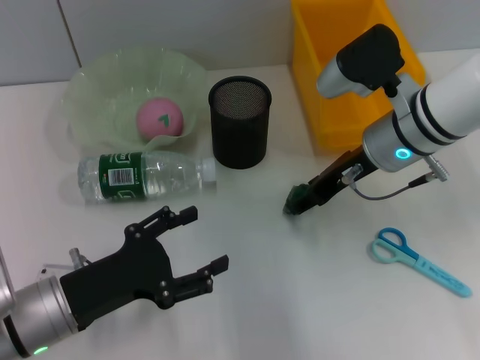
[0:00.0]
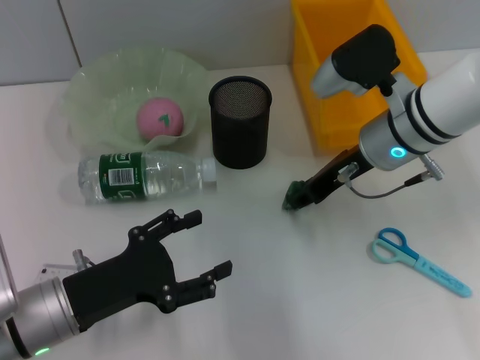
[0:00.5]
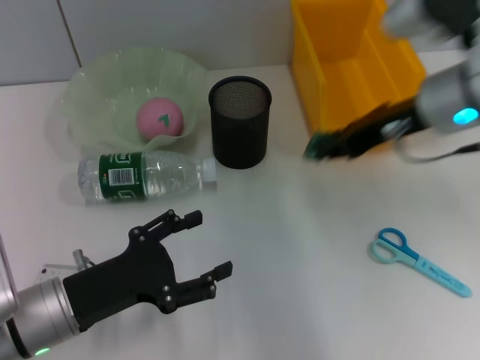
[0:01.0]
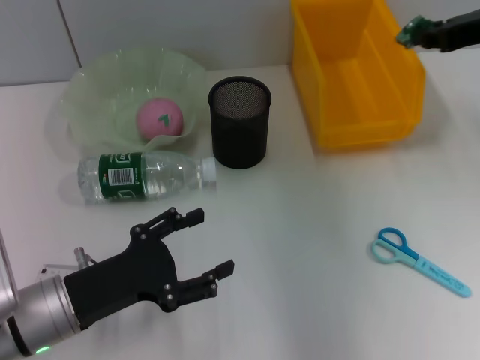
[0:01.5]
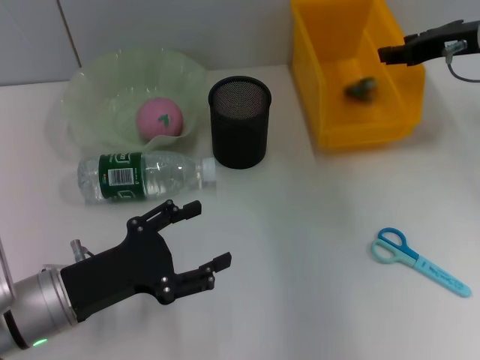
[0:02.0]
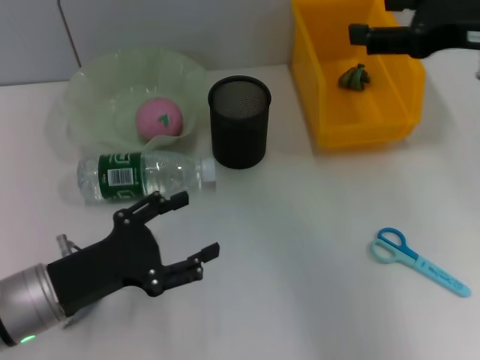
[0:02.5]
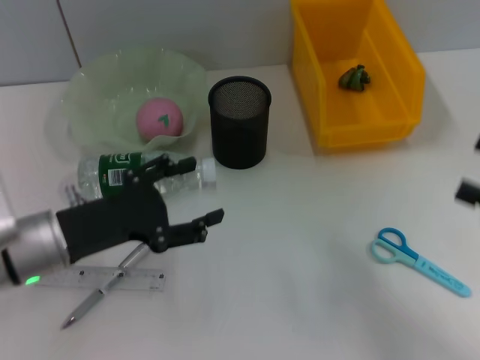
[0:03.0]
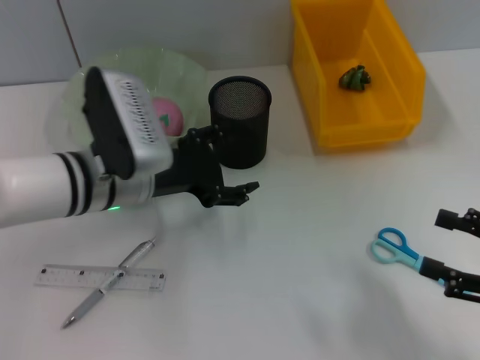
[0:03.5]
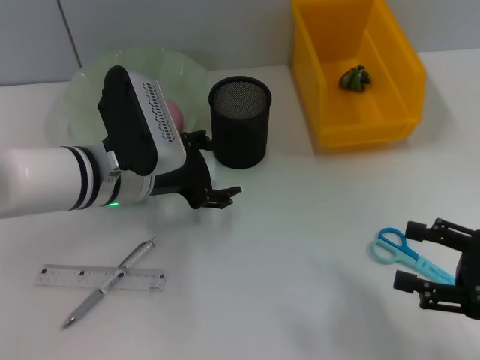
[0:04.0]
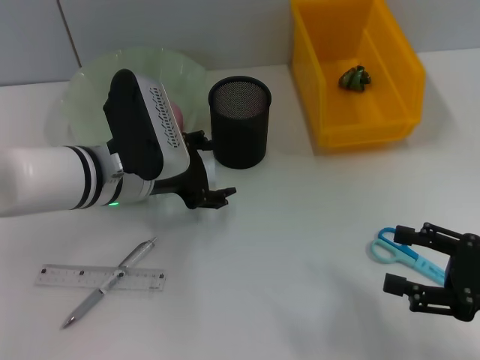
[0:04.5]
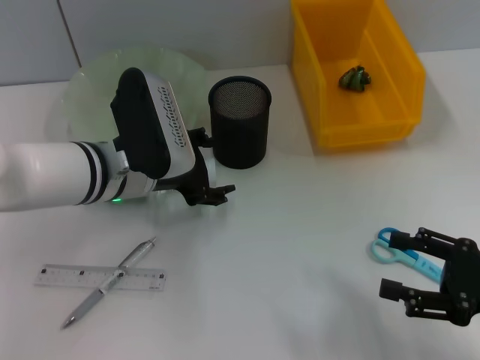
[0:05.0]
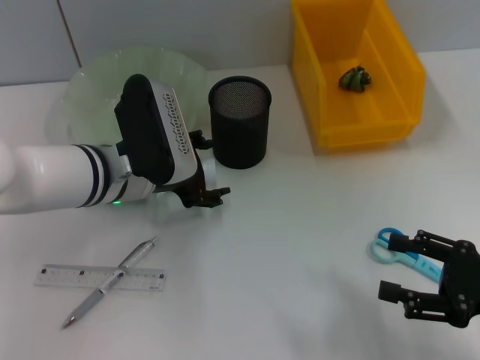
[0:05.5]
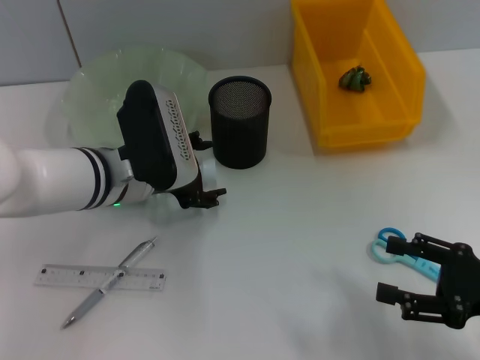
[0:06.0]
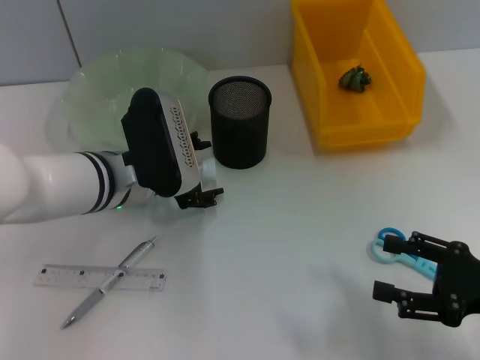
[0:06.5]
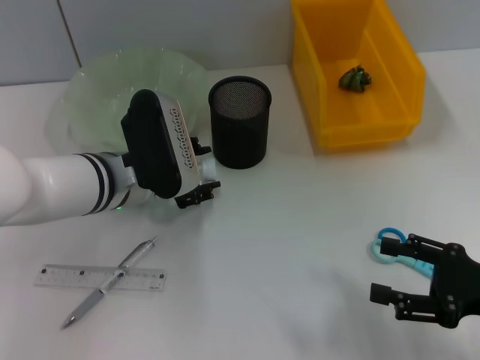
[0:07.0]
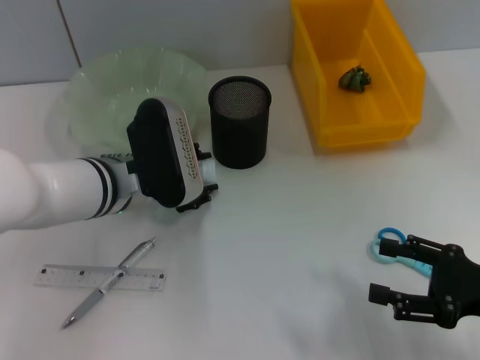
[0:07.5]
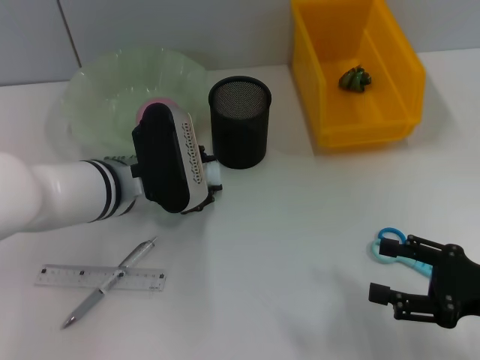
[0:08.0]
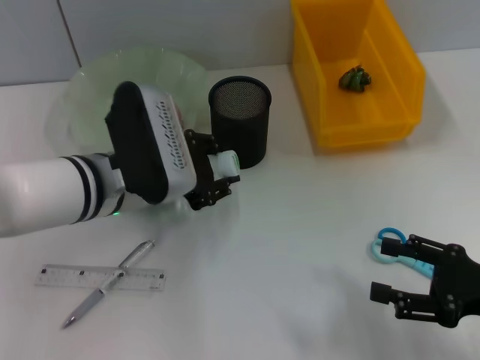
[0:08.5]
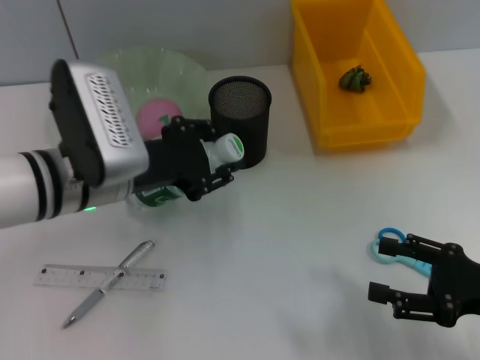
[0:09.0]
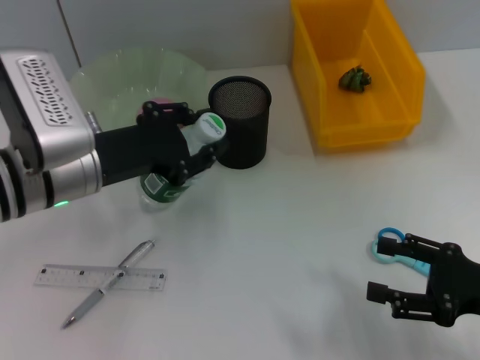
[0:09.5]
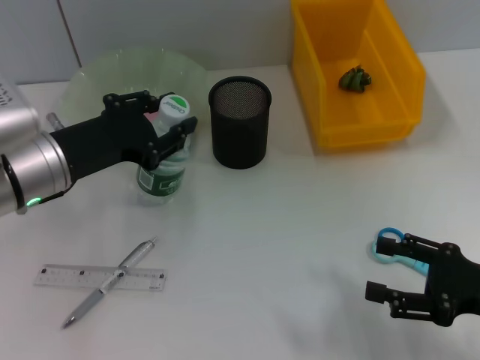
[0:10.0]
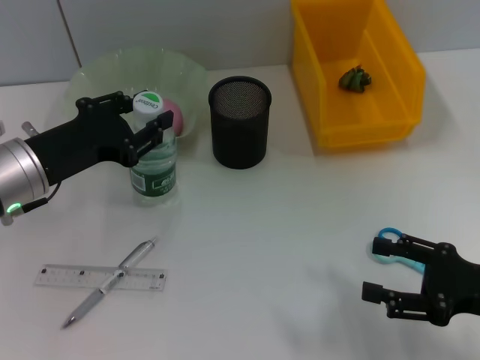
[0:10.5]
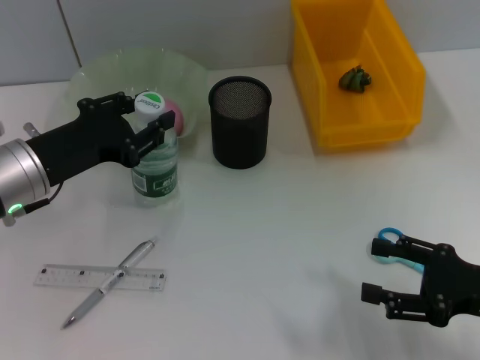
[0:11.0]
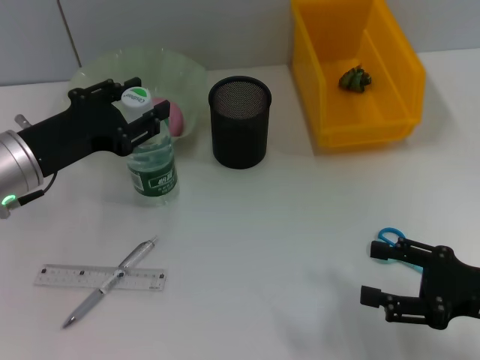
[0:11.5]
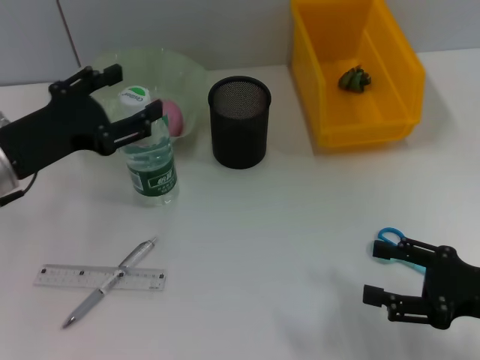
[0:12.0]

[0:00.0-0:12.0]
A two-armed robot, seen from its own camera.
Step, 0:01.0 to 0:02.0: Place the plastic into the trash can with the right hand.
Step, 0:02.5 to 0:07.5: Grab the water bottle with the left hand.
Step, 0:08.0 to 0:11.5: Place the water bottle on the table with the left hand.
0:00.0 to 0:02.0: The right gripper heads to the right and upward, covering approximately 15 cm, and closes.
0:02.0 to 0:04.0: The right gripper shifts approximately 25 cm backward and downward, and opens. Meanwhile the left gripper heads forward, to the right and upward, covering roughly 15 cm.
0:04.0 to 0:06.0: The grippers make only small movements.
0:06.0 to 0:08.0: The left gripper closes its fingers.
0:08.0 to 0:10.0: The left gripper goes about 10 cm to the left.
0:10.0 to 0:12.0: The left gripper opens up.

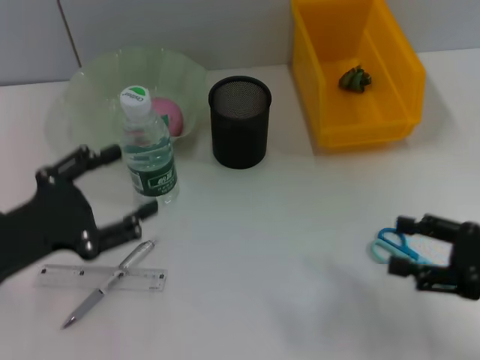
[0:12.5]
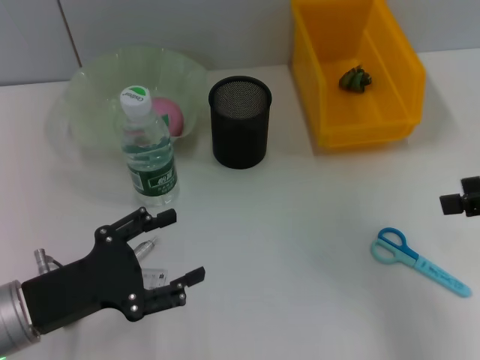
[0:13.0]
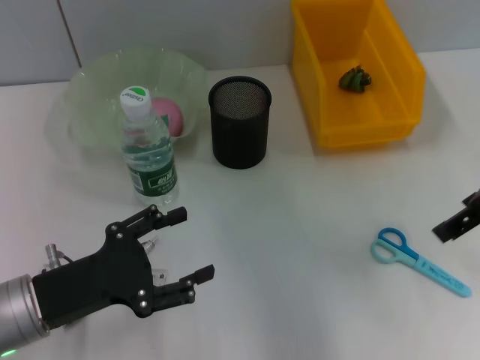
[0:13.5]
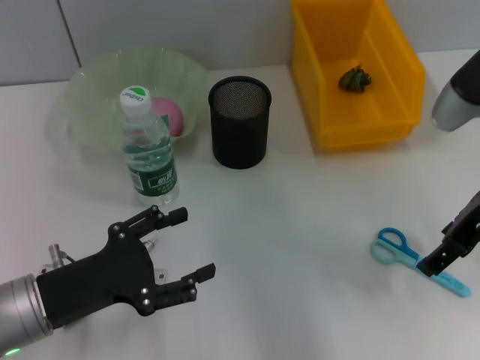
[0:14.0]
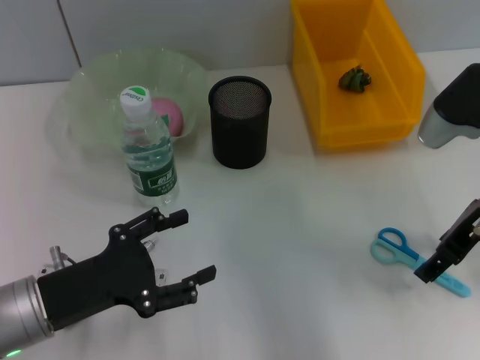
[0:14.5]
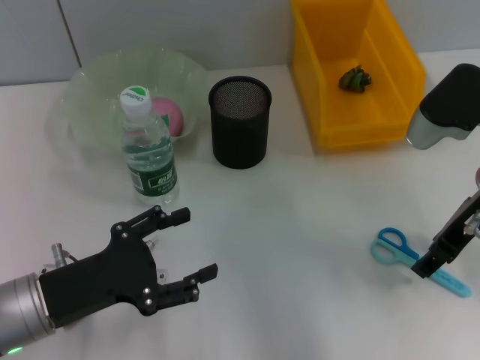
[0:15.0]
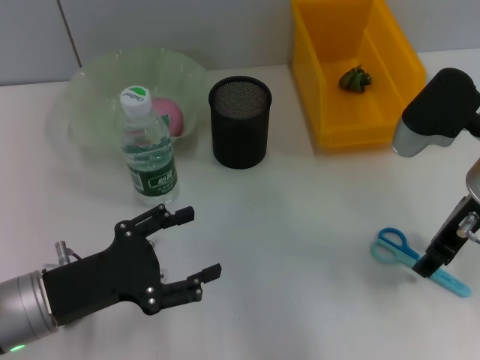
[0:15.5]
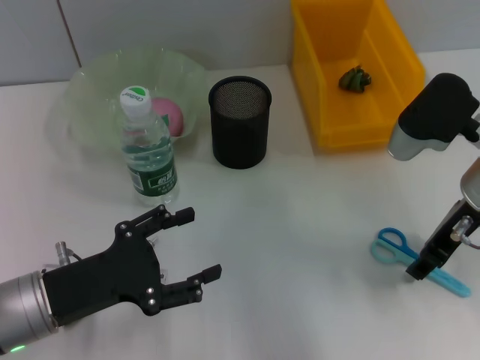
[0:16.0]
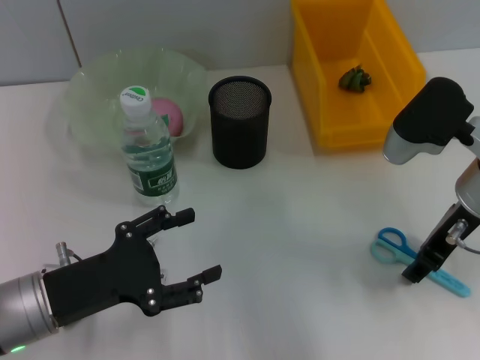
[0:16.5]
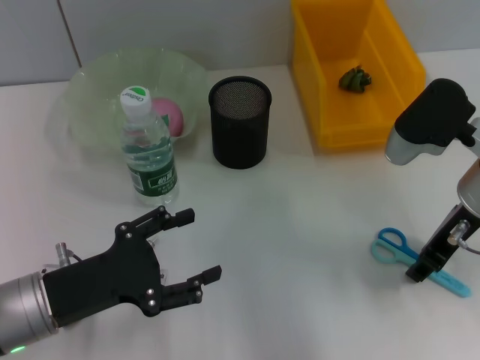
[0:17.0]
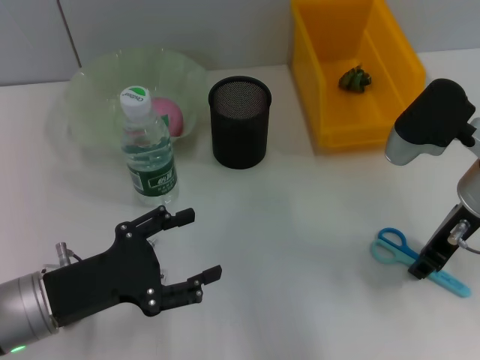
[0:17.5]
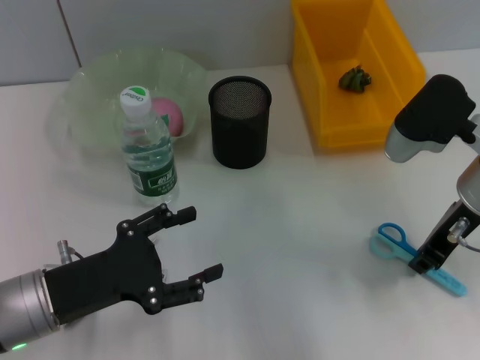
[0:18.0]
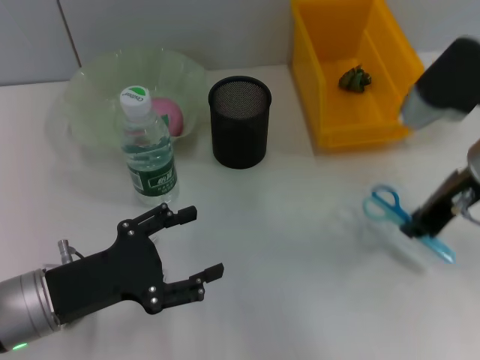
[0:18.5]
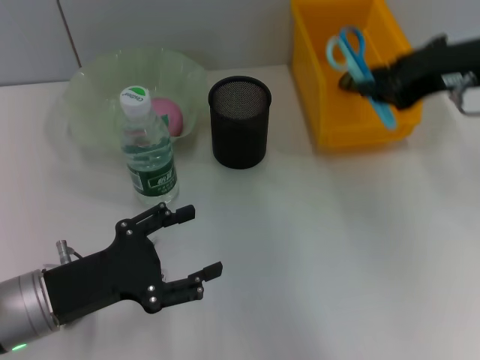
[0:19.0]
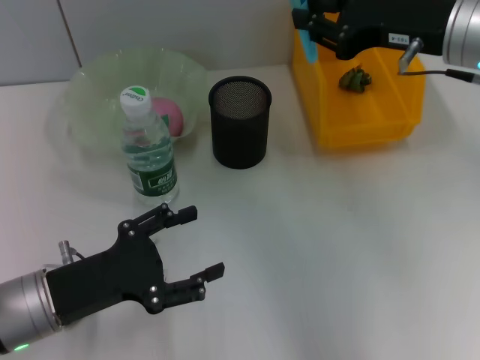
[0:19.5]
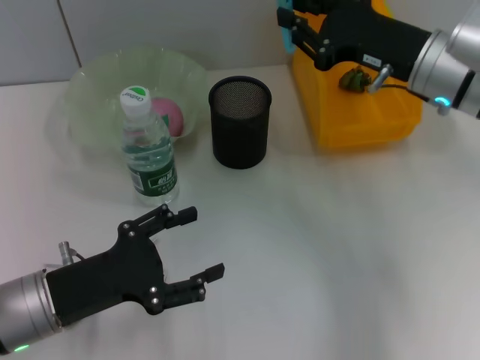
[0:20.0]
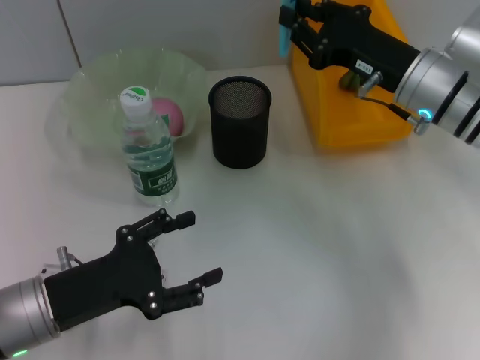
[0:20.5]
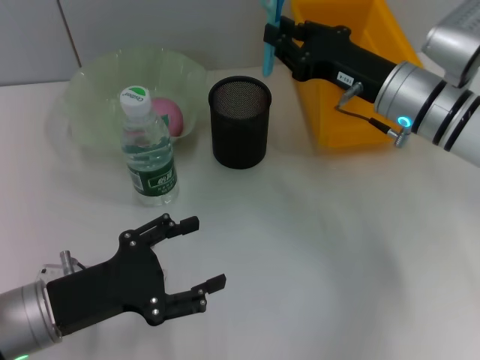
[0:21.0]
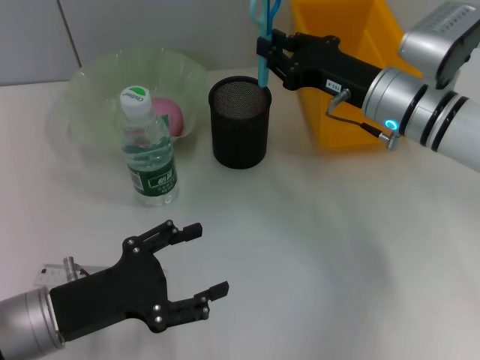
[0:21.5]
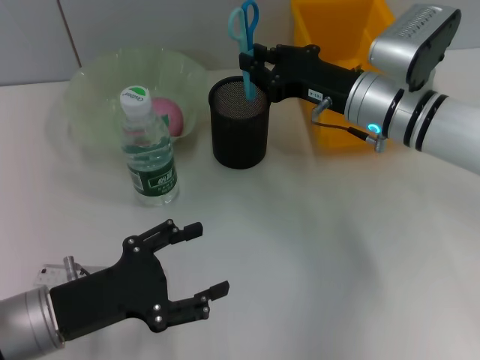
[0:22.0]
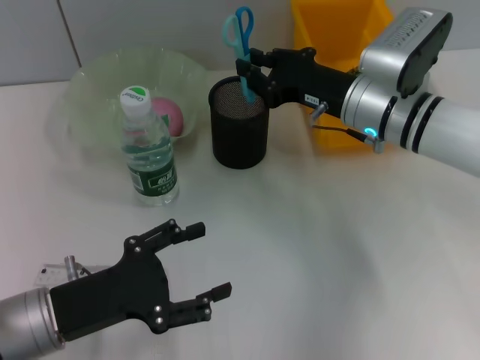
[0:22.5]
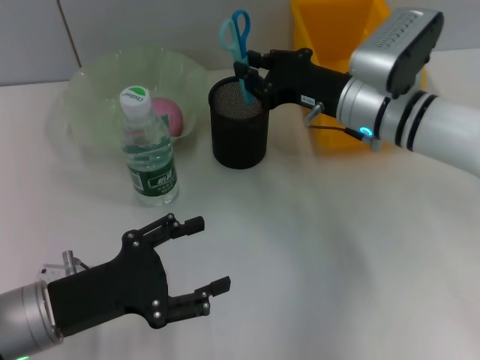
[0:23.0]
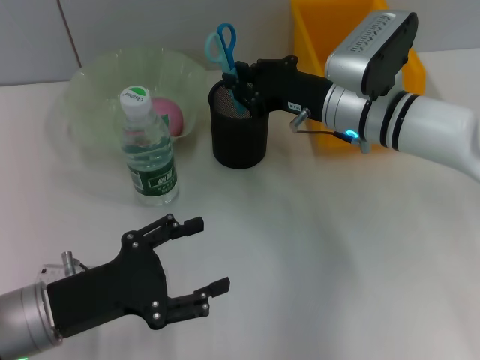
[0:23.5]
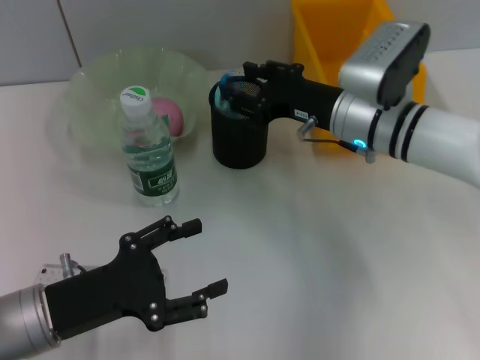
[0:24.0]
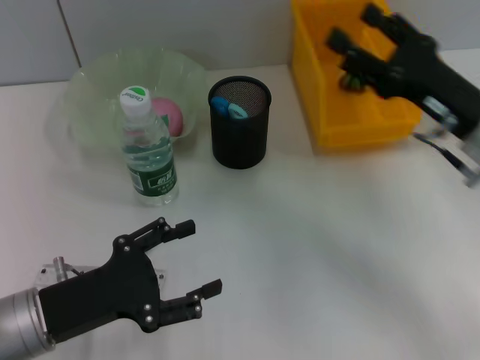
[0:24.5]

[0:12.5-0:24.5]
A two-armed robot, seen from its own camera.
Step, 0:12.5 to 0:17.5: Grab the blue scissors with the right hand.
Step, 0:18.0 to 0:23.5: Place the blue scissors into the pen holder with the right hand.
0:12.5 to 0:14.5: The right gripper is displaced forward, upward and to the left by roughly 15 cm; the left gripper shifts some 5 cm downward.
0:14.5 to 0:16.5: The grippers make only small movements.
0:16.5 to 0:18.5: The right gripper closes its fingers.
0:18.5 to 0:20.5: The right gripper goes roughly 5 cm forward, and reaches about 10 cm upward, then returns.
0:20.5 to 0:22.5: The right gripper shifts by roughly 5 cm.
0:22.5 to 0:24.5: The right gripper heads backward and to the right, covering some 10 cm, and opens.

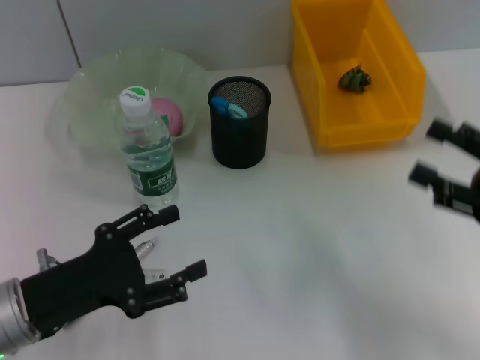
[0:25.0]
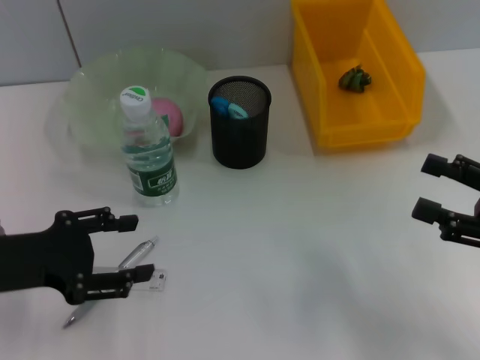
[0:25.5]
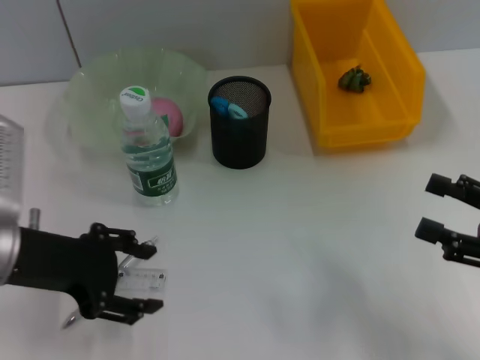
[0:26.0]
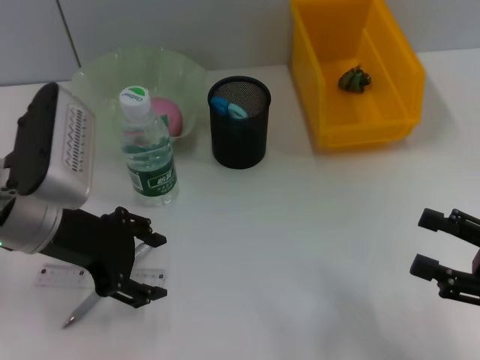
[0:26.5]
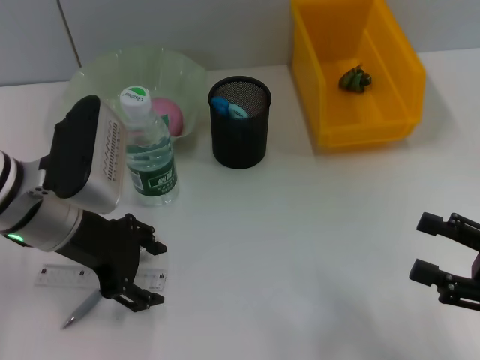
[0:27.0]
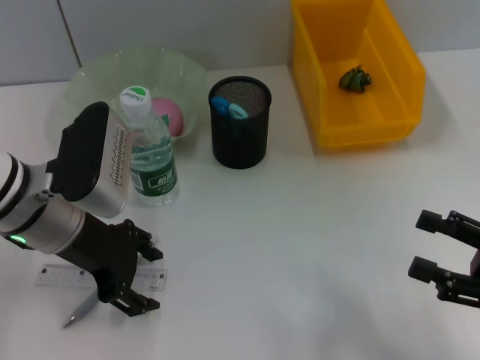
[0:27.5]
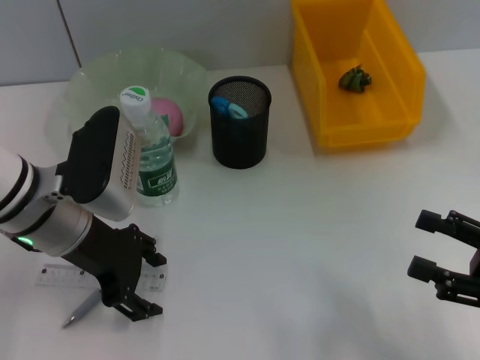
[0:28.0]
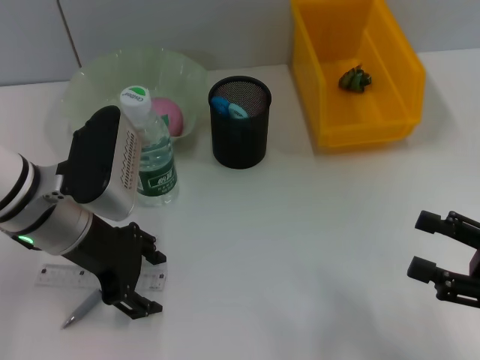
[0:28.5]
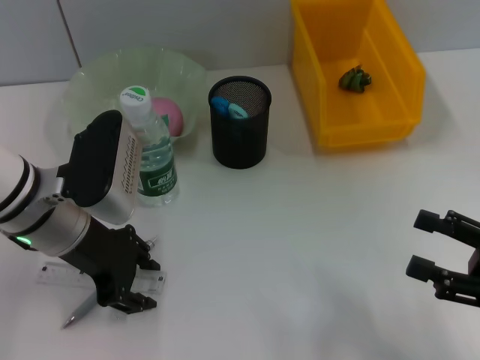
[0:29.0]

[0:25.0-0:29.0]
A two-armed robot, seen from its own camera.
0:25.0 to 0:27.0: The right gripper goes roughly 5 cm backward, while the left gripper travels forward, upward and to the right by approximately 15 cm.
0:27.0 to 0:29.0: There are only small adjustments of the grippers.
